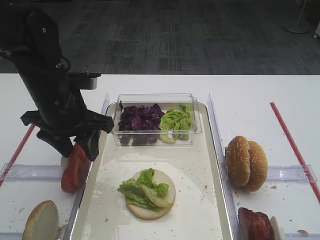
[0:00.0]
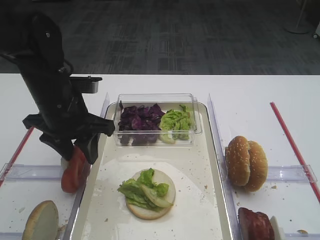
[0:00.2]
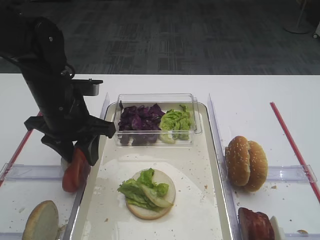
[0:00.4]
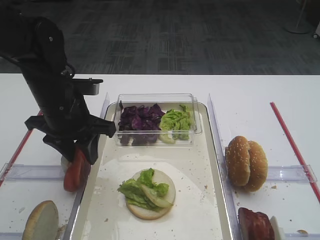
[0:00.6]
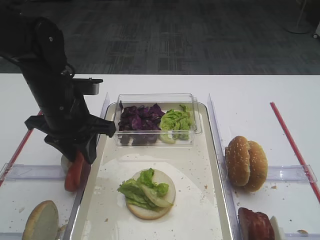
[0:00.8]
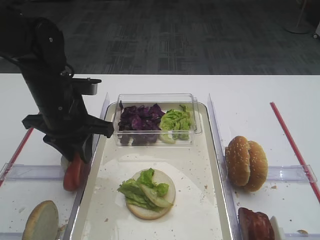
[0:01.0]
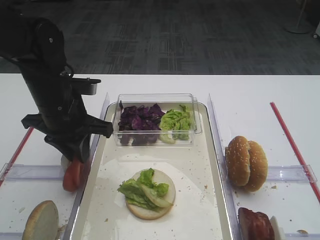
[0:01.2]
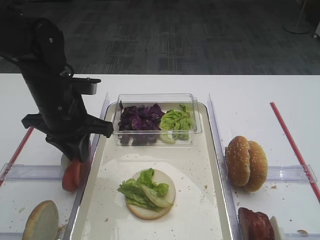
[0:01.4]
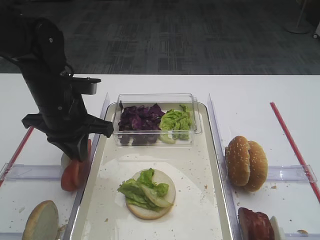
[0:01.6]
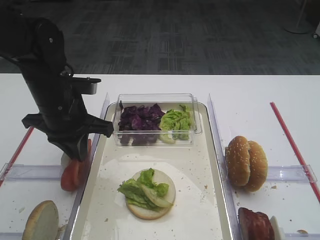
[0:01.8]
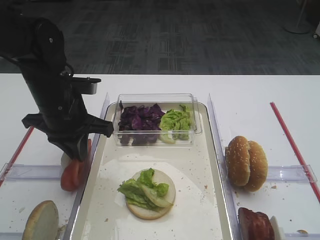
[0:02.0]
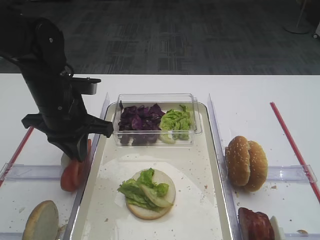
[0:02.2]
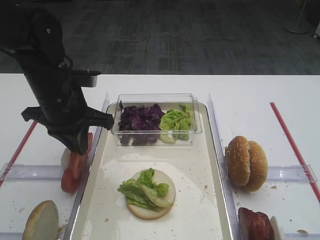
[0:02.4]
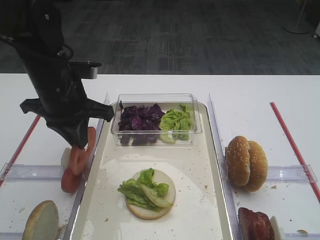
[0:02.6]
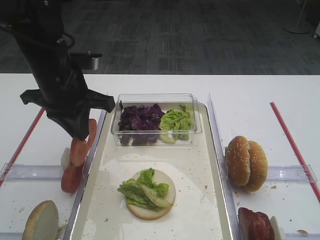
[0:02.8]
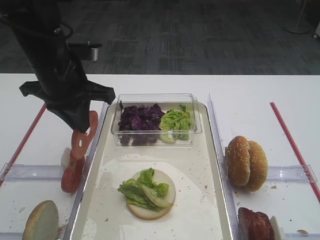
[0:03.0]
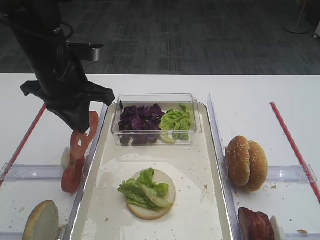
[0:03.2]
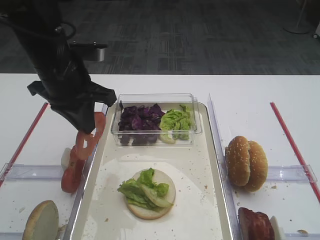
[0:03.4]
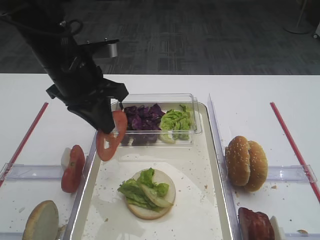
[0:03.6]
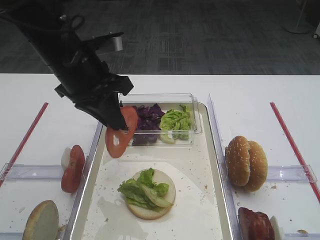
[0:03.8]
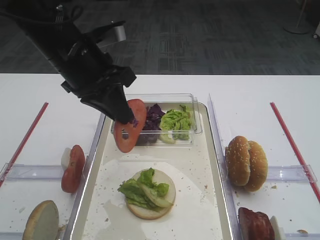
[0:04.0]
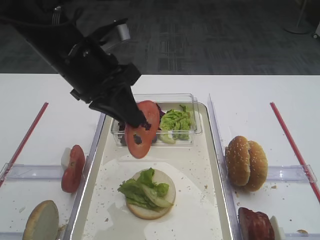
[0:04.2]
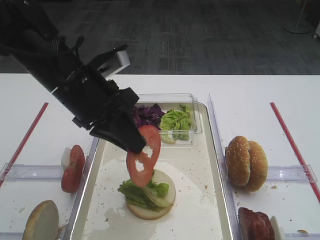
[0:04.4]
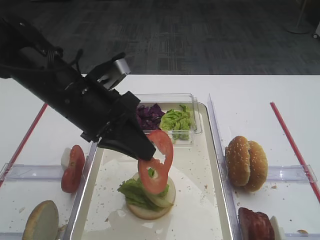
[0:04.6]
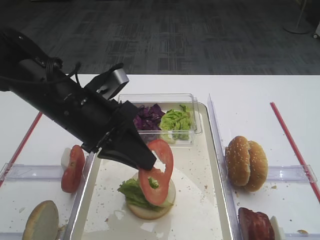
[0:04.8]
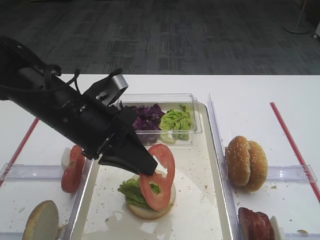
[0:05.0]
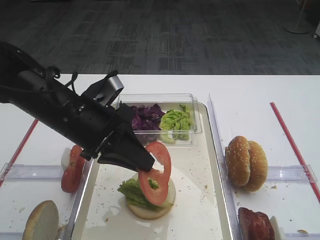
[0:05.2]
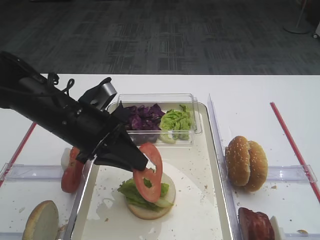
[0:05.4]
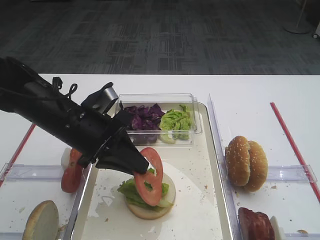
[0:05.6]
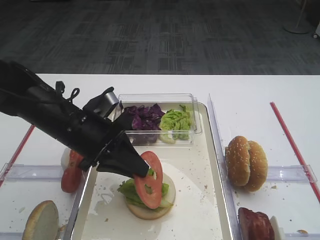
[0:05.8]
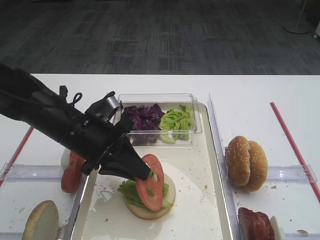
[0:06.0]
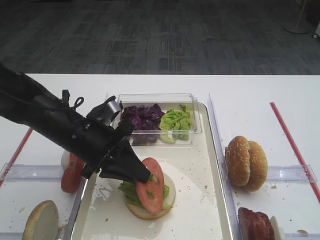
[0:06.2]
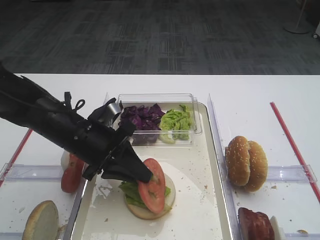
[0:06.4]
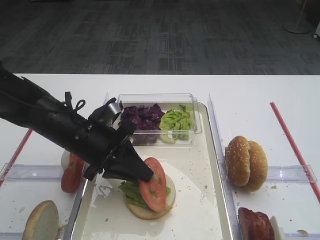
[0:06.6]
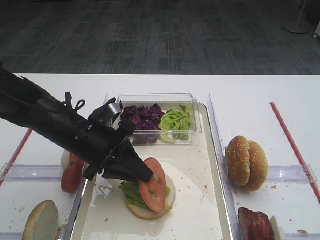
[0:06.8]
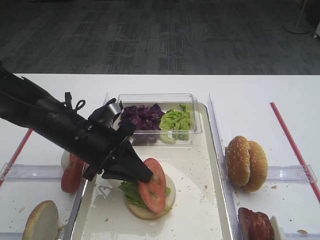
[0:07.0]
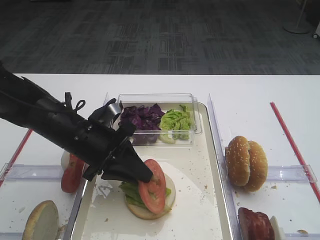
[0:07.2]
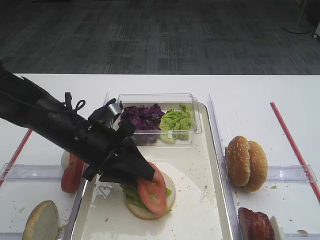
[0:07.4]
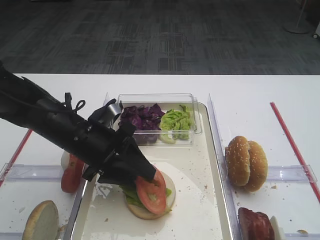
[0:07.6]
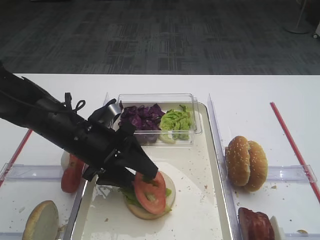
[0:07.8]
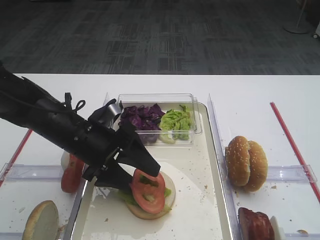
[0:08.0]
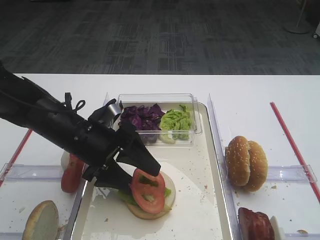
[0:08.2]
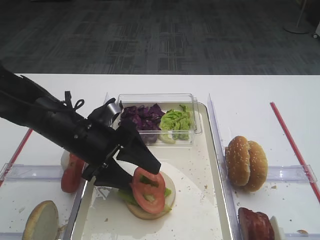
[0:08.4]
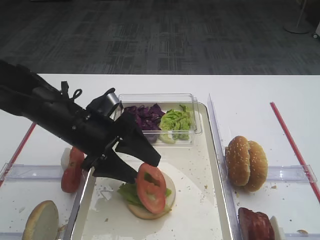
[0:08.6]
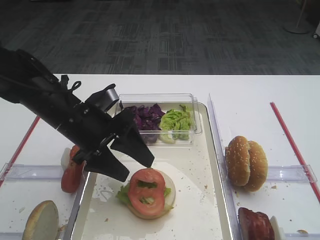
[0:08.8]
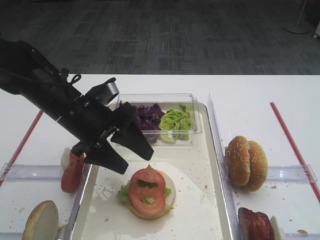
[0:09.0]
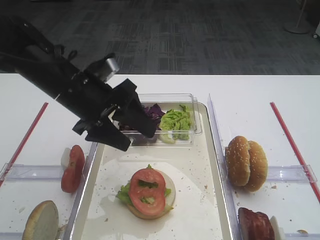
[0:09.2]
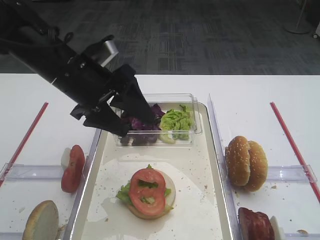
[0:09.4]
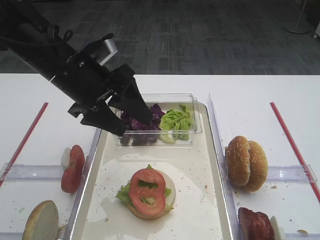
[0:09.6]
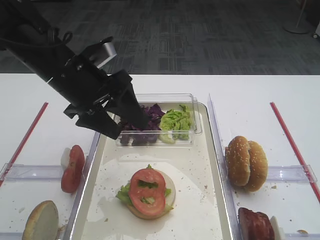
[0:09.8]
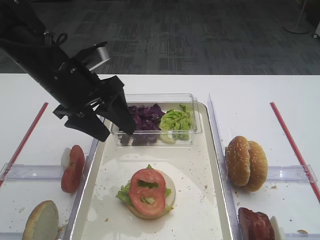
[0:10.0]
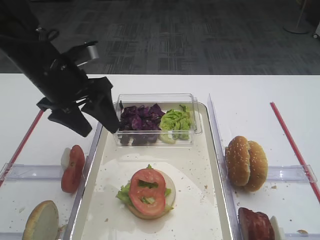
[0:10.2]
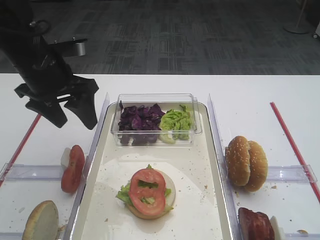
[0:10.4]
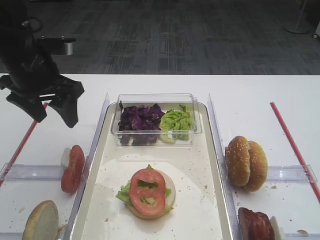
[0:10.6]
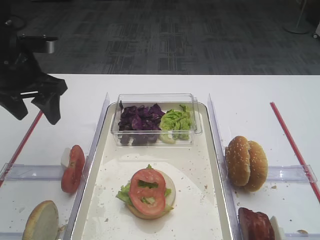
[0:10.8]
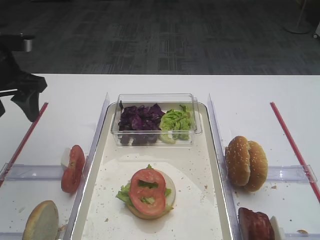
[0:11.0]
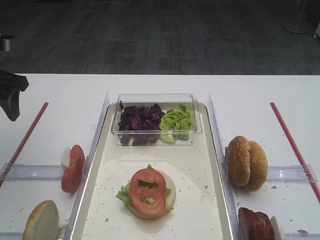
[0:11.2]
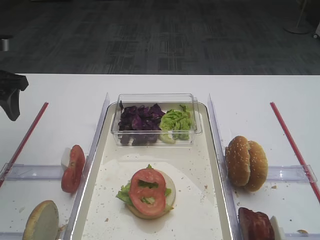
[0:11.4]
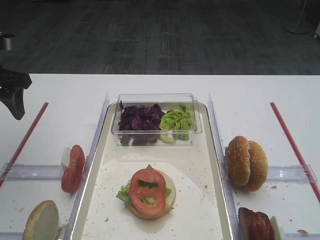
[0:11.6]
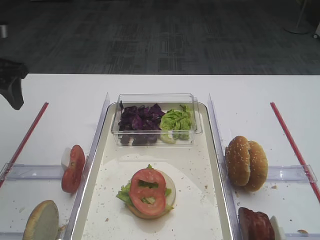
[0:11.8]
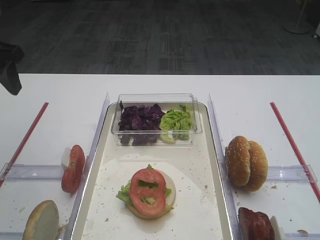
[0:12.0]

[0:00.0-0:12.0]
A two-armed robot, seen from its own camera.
Step, 0.0 to 3.2 s: Pick up the tomato slice with the left gripper.
Step, 3.4 to 9.0 s: Place the tomato slice on the lettuce leaf with the left gripper.
0.0 to 1.6 s: The left gripper closes.
1.6 to 3.0 s: The left gripper travels upward by roughly 5 cm.
3.0 to 4.4 s: The left gripper moves some 5 cm.
4.4 to 6.0 s: The left gripper travels downward by approximately 10 cm.
6.0 to 7.6 s: The left gripper opens its fingers.
7.6 to 9.0 s: The left gripper opens up.
9.0 to 10.4 s: The left gripper is displaced upward and to the left by about 10 cm.
10.4 to 12.0 s: The left gripper shifts about 10 cm to the left and upward.

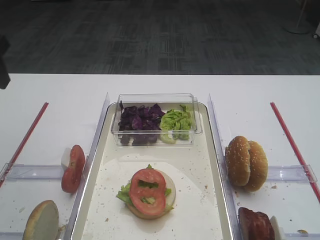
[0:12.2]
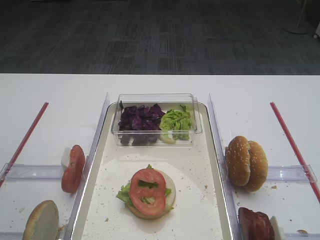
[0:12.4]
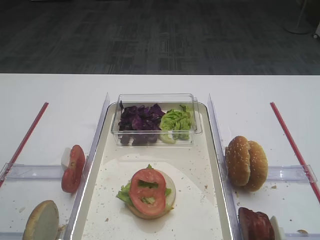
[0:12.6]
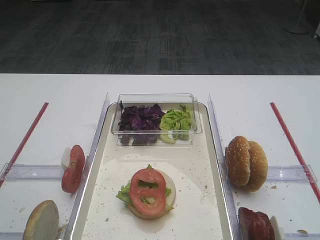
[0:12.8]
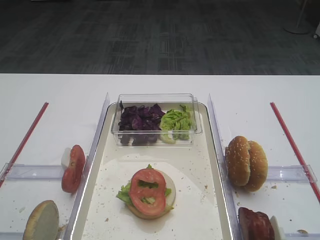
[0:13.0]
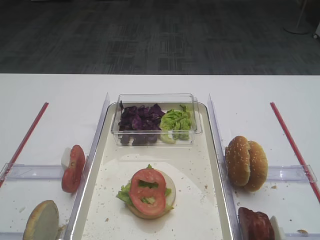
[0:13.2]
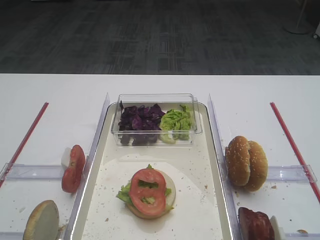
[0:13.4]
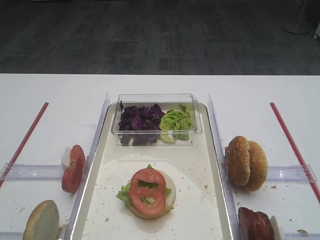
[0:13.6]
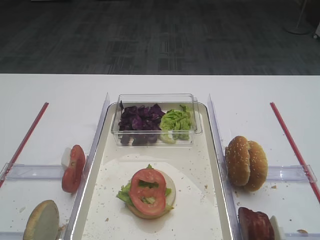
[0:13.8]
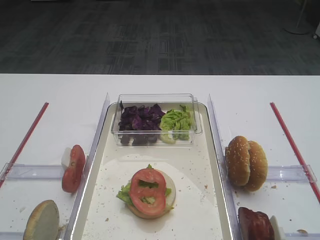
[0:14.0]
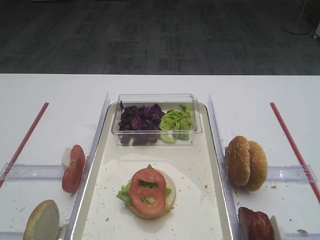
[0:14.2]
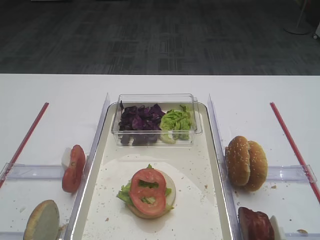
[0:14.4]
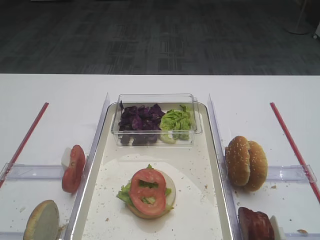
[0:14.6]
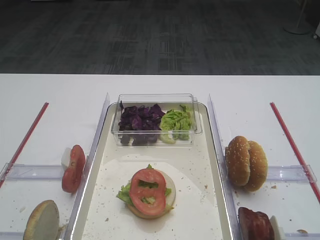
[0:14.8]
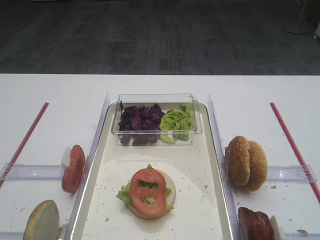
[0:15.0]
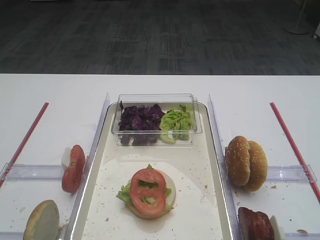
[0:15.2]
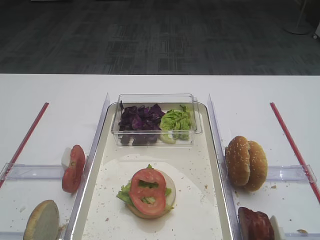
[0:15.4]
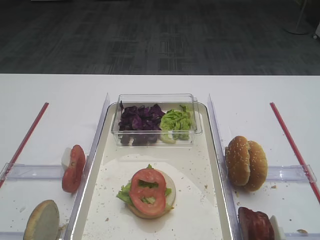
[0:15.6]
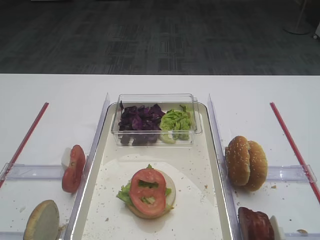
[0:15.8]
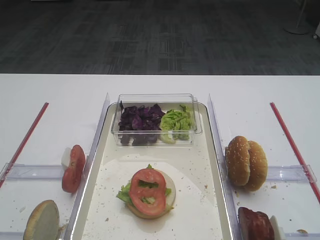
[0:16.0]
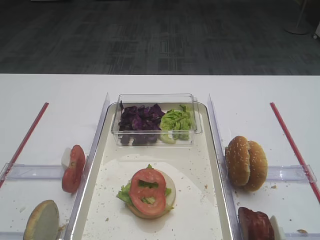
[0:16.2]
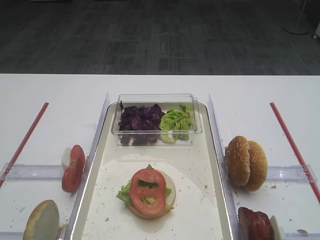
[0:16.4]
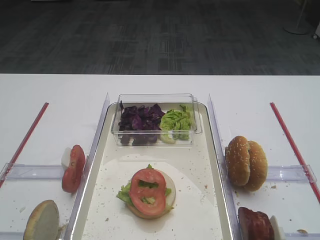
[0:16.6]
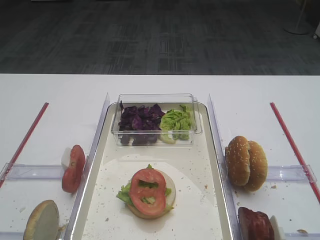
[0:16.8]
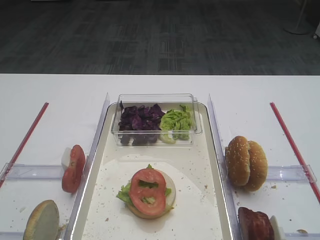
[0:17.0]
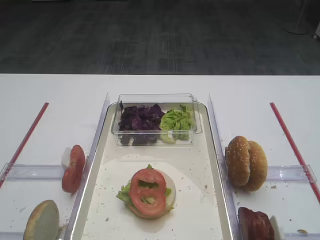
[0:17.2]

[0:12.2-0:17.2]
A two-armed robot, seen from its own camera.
15.6 to 17.2 s: Both grippers stay about where they are.

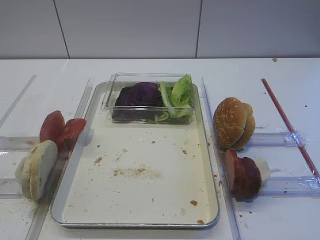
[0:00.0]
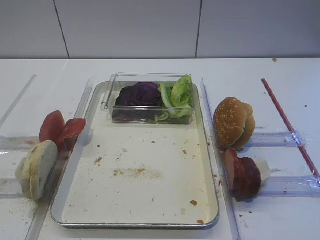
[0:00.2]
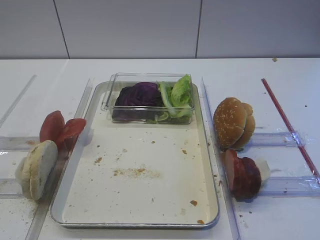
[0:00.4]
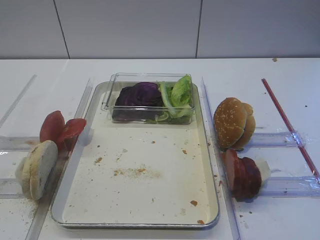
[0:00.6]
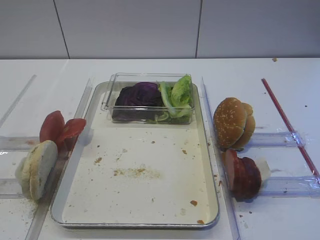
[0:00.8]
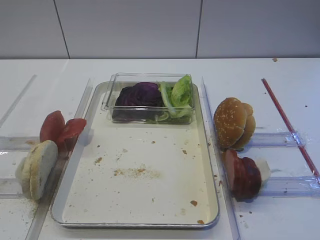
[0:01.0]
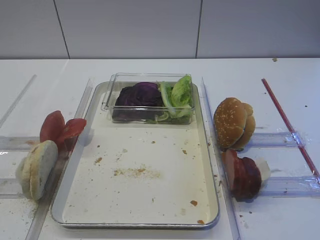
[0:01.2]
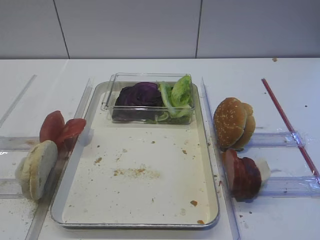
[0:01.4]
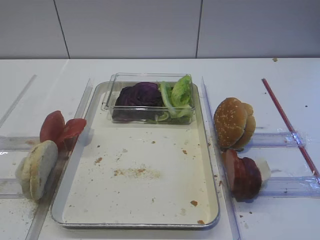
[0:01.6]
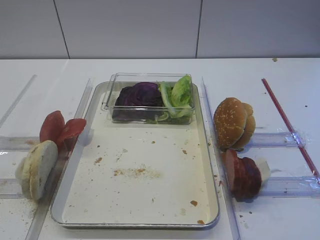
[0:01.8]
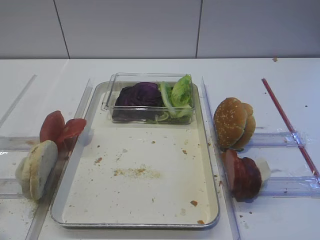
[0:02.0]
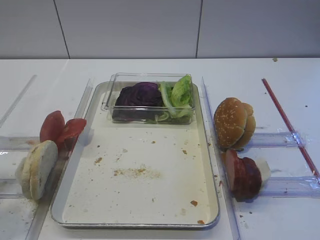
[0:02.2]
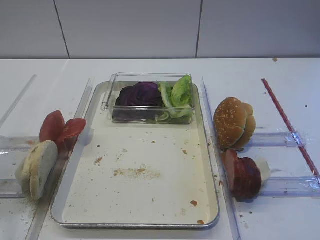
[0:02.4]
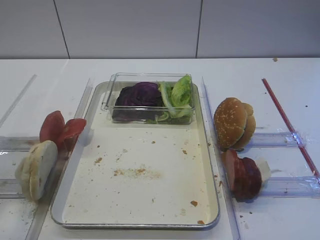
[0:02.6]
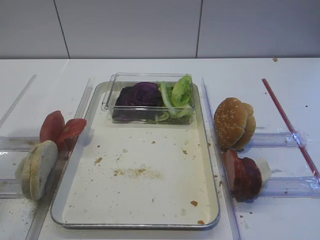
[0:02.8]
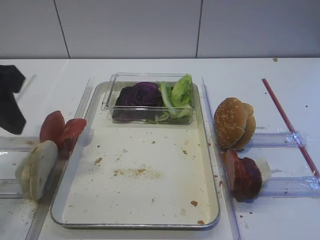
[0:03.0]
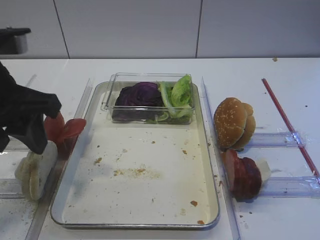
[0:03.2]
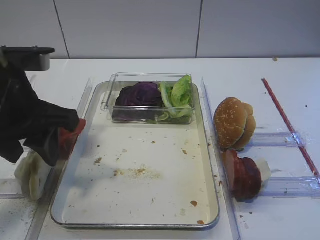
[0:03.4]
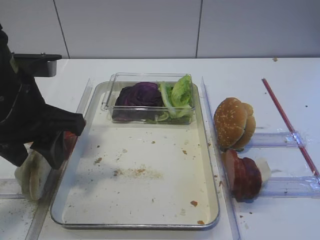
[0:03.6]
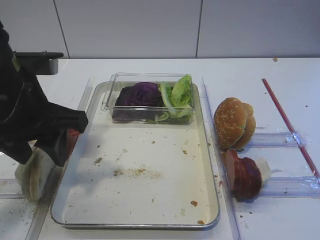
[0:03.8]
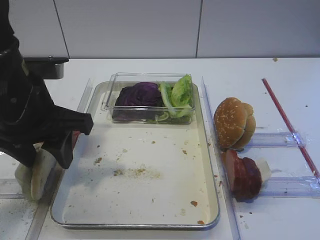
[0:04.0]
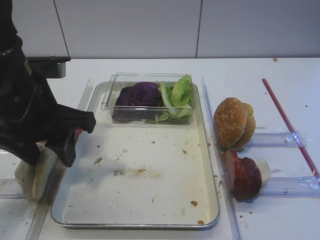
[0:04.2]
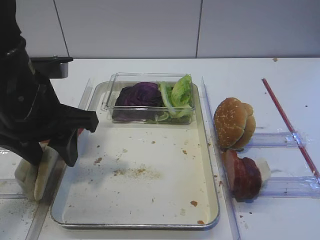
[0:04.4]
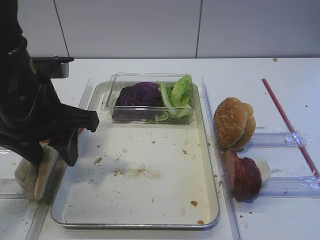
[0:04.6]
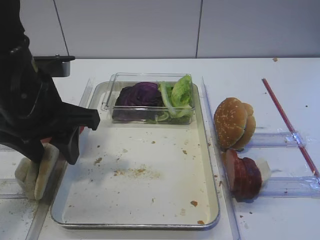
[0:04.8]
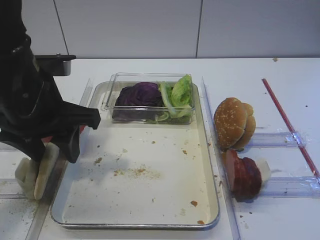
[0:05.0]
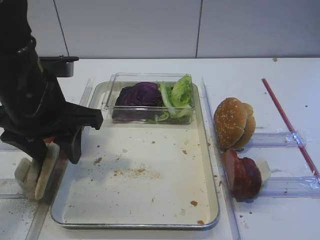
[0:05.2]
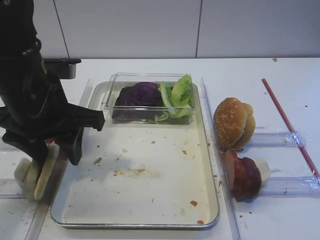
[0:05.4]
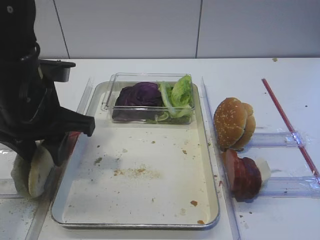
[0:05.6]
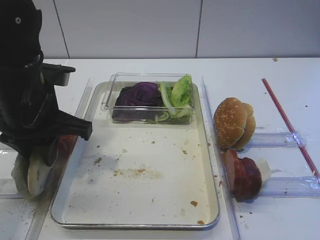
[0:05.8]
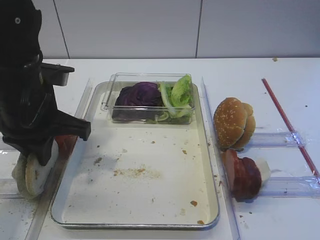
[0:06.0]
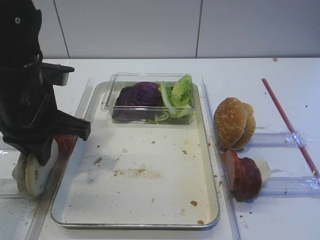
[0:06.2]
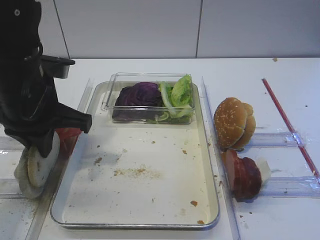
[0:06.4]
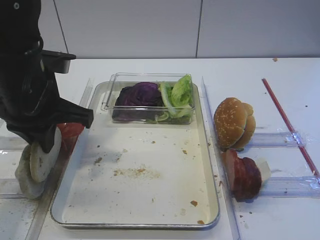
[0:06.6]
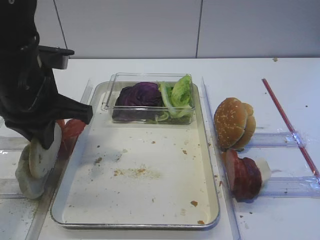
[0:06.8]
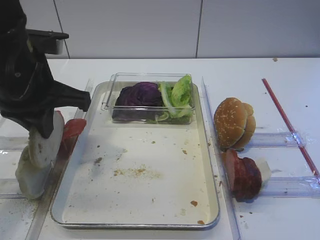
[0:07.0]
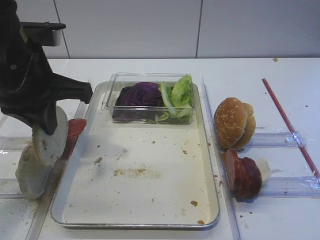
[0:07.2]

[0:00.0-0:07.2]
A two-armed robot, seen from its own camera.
Step, 0.0 to 7.0 s: Pick up the bread slice with the left gripper.
1.4 to 2.8 s: The left gripper shifts about 20 cm forward and upward.
2.8 to 4.4 s: The left gripper is displaced to the right, downward and forward by about 15 cm.
4.4 to 5.8 s: The left gripper closes.
5.8 to 7.2 s: The left gripper is displaced upward by roughly 5 cm, and closes.
